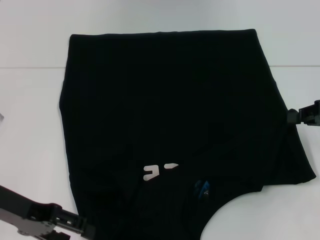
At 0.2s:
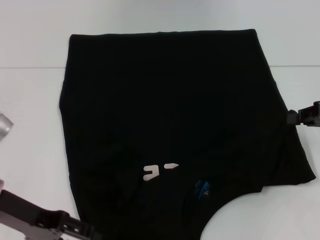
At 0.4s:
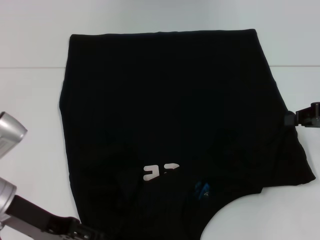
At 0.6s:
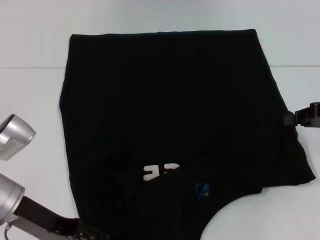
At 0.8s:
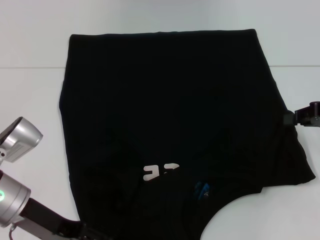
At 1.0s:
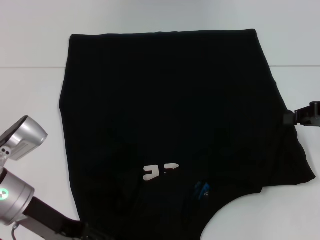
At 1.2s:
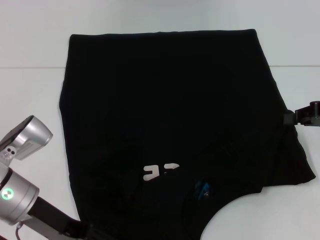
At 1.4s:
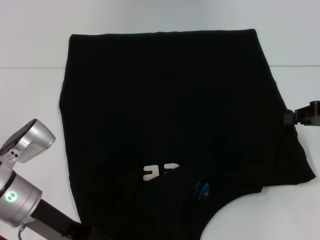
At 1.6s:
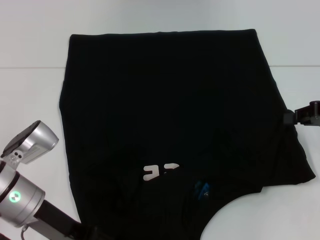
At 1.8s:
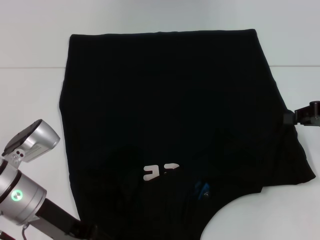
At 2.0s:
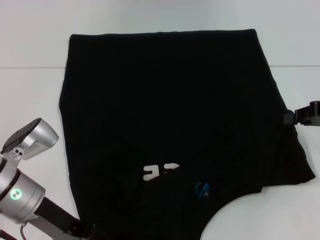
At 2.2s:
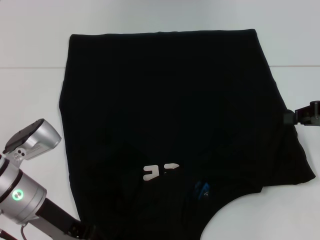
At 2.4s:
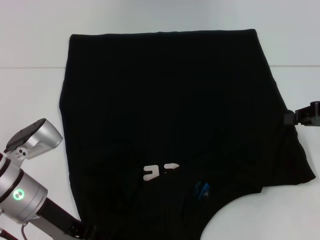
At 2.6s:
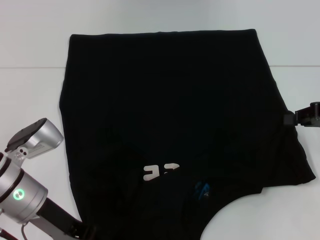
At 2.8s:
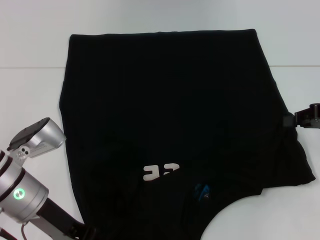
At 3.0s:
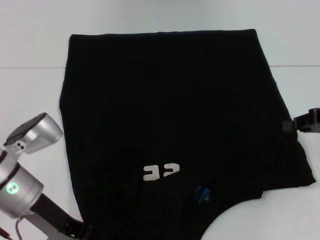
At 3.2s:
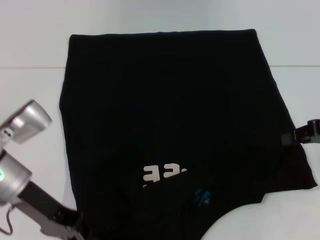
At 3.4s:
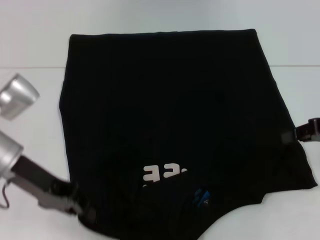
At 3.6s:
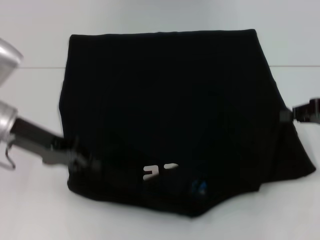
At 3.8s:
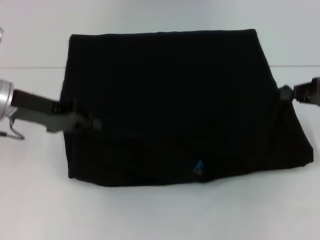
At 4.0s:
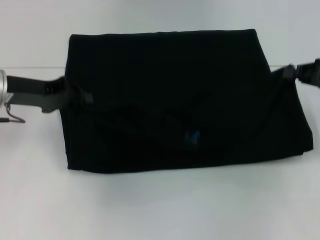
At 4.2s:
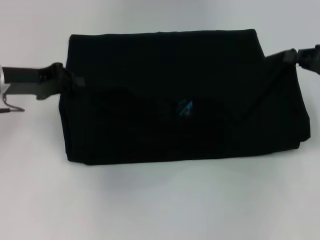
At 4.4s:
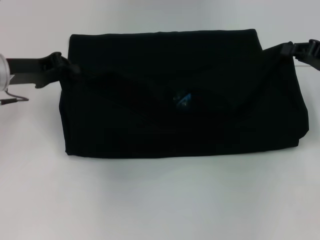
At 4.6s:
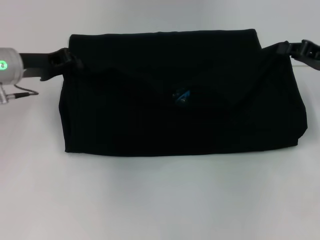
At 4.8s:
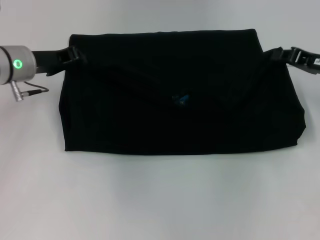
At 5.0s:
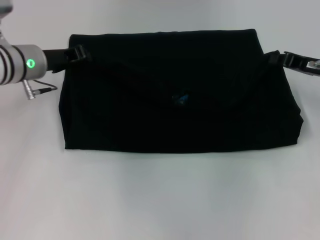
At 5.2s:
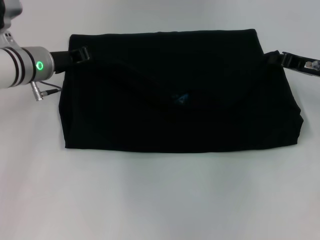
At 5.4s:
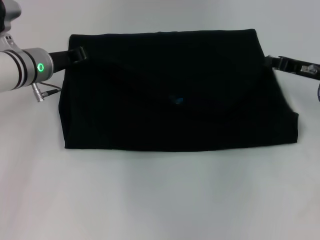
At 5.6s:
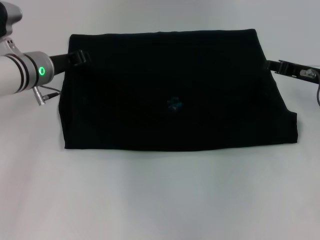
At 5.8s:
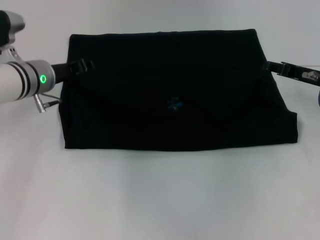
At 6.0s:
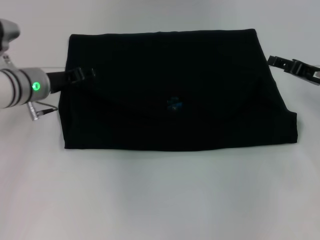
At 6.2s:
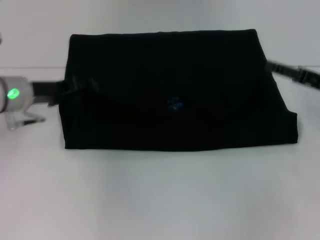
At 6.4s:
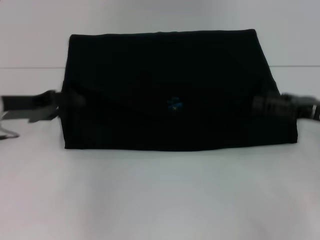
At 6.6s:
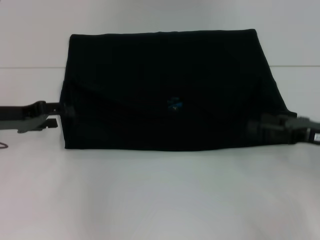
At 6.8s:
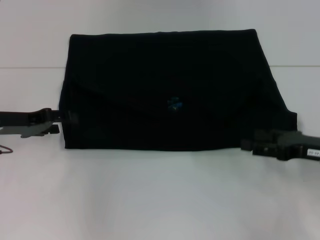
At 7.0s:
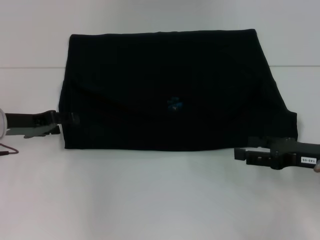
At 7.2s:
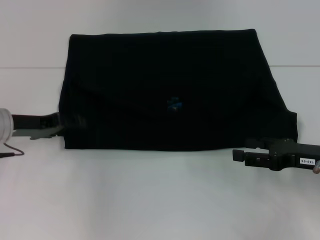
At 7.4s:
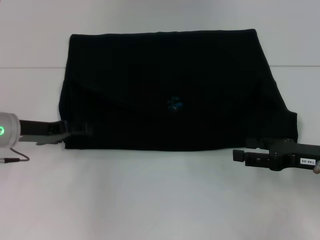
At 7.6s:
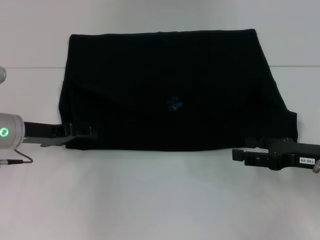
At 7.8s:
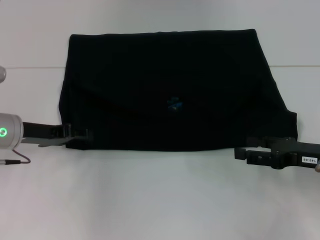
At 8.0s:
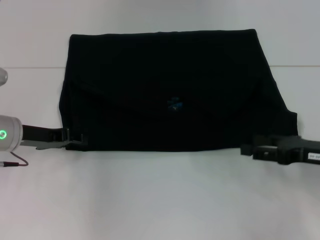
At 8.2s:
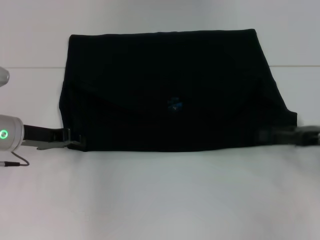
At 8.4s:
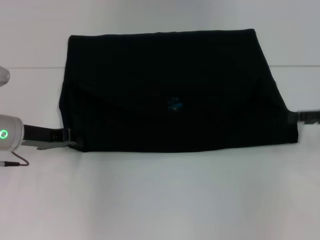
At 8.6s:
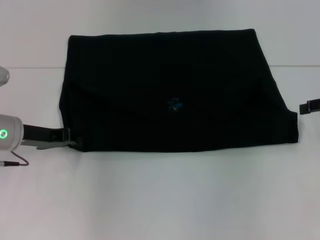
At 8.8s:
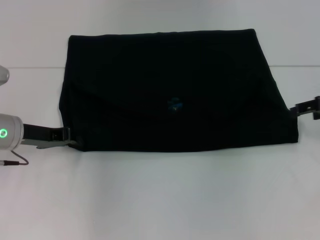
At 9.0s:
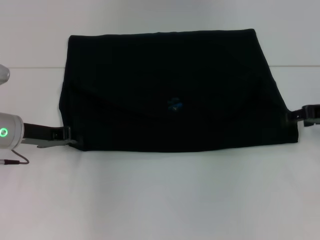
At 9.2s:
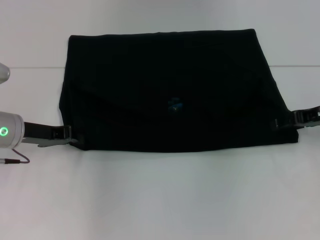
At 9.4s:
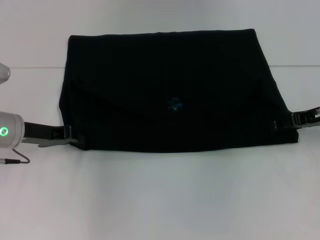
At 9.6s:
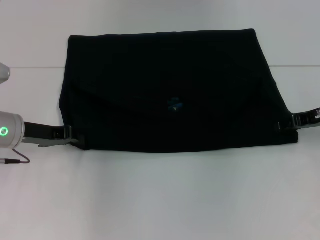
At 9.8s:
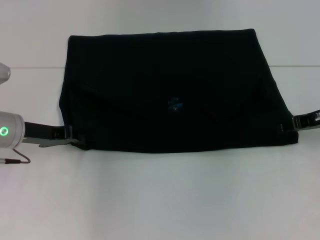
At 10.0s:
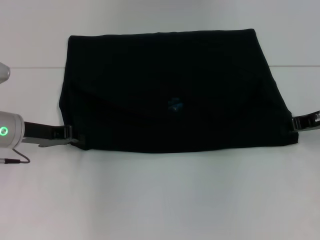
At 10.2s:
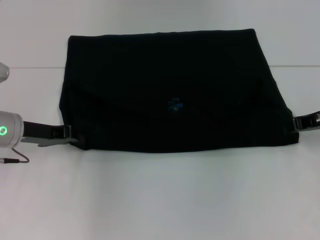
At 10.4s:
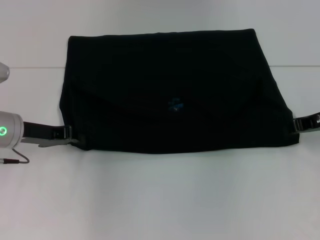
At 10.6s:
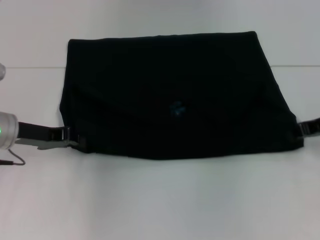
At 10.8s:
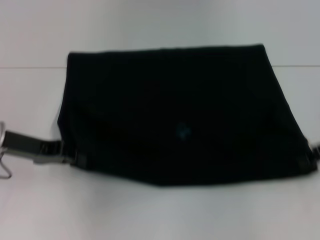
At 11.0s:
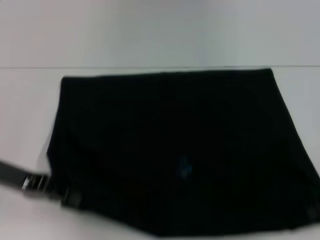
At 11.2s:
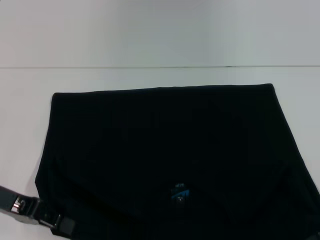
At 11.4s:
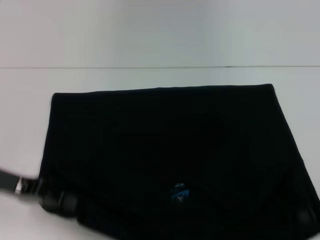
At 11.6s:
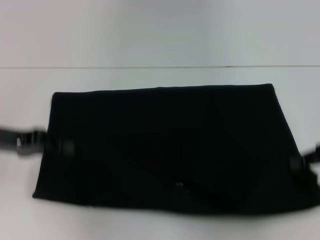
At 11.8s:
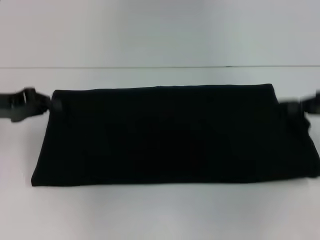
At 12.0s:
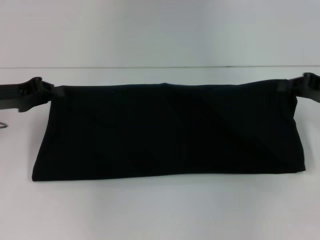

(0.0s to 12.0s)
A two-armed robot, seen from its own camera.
Step, 0.0s - 6.0s: Fold the clothes with your left hand.
Step, 0.0s - 6.0s: Fold the clothes with your right hand.
Step, 6.2s - 11.0s: Pull the clothes with your left hand.
Step, 6.2s - 11.0s: Pull the clothes with your right hand.
0.0s - 1.6s: The left gripper travels to the right by approximately 5 cm.
1.6s - 3.0s: The left gripper closes its fingers.
3.0s - 4.4s: The left gripper is displaced forward, to the left and upward by roughly 15 cm.
4.4s - 6.0s: The left gripper heads downward, covering about 5 cm, and opens up. The right gripper moves approximately 5 cm, and opens up.
6.0s - 7.6s: The grippers both shift backward by some 10 cm.
7.6s - 9.0s: The left gripper closes up, while the right gripper travels forward and upward by about 10 cm.
9.0s - 10.4s: The right gripper closes.
10.4s - 12.0s: The right gripper moves about 10 cm backward and comes back. Meanwhile the left gripper goes backward and returns, roughly 10 cm each way.

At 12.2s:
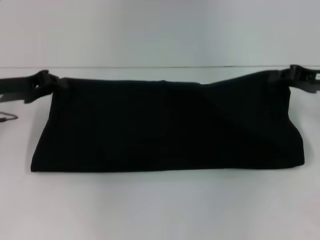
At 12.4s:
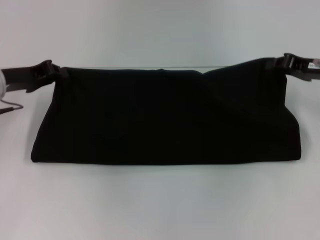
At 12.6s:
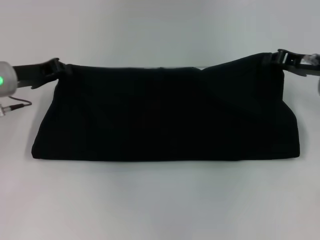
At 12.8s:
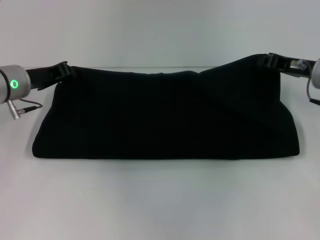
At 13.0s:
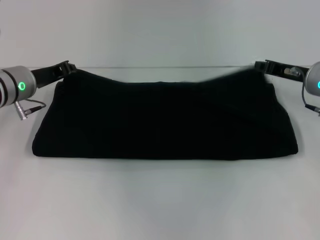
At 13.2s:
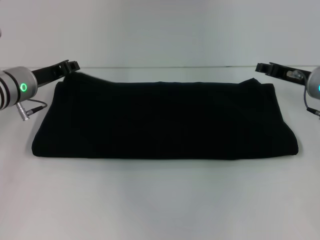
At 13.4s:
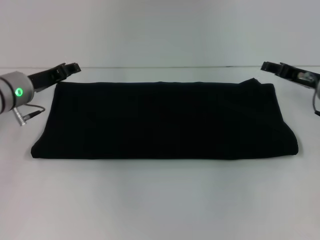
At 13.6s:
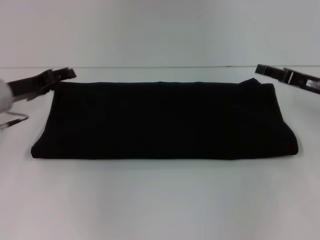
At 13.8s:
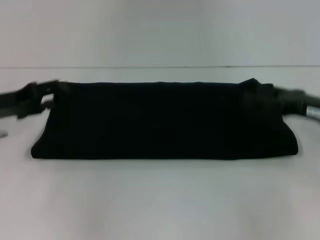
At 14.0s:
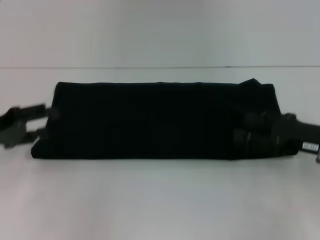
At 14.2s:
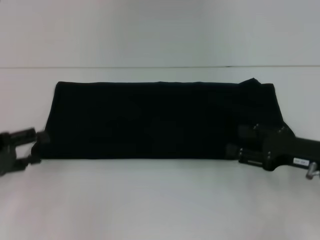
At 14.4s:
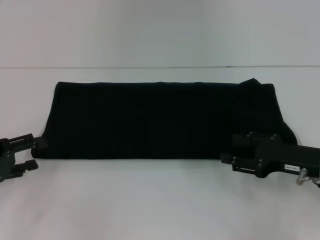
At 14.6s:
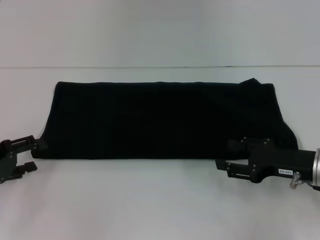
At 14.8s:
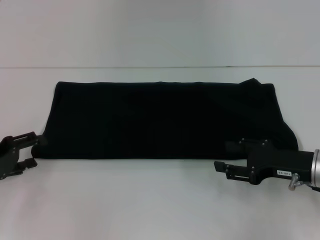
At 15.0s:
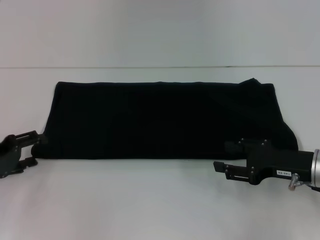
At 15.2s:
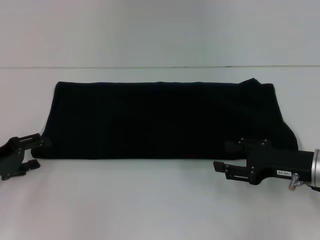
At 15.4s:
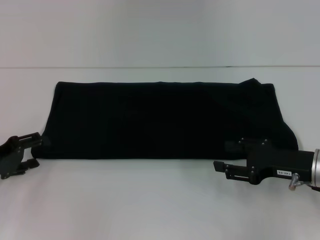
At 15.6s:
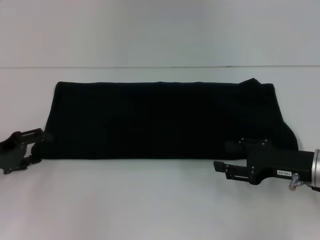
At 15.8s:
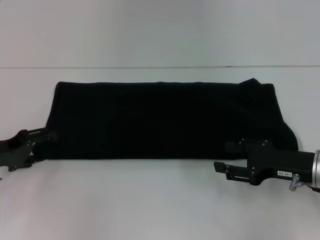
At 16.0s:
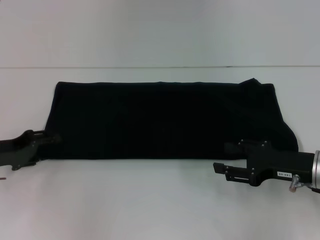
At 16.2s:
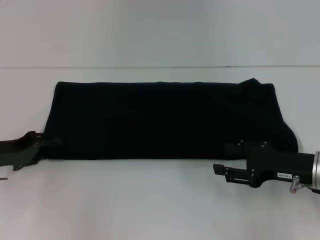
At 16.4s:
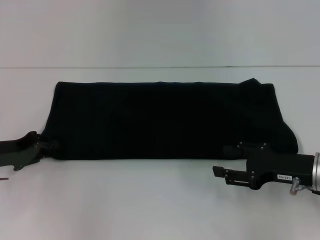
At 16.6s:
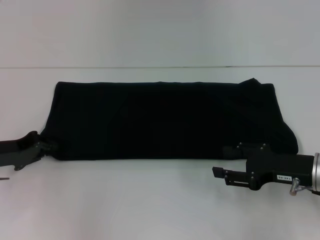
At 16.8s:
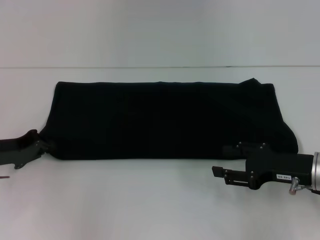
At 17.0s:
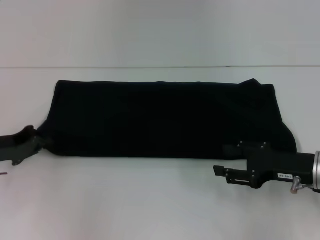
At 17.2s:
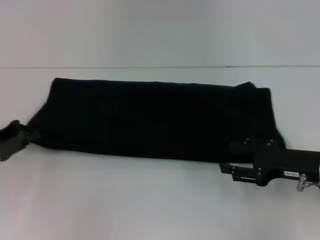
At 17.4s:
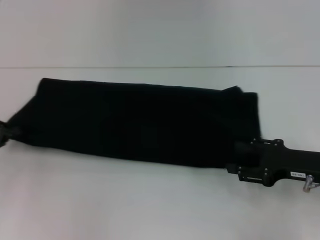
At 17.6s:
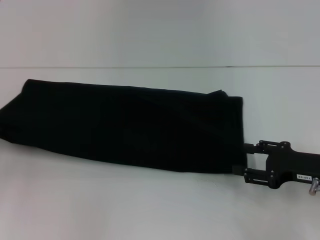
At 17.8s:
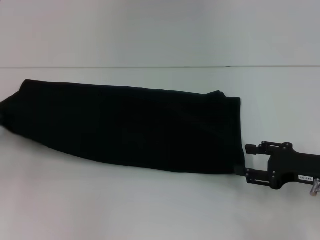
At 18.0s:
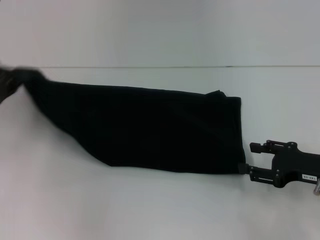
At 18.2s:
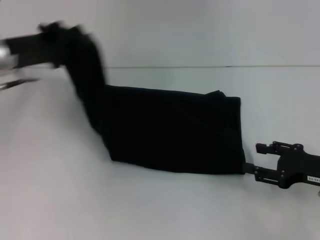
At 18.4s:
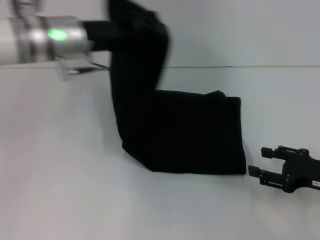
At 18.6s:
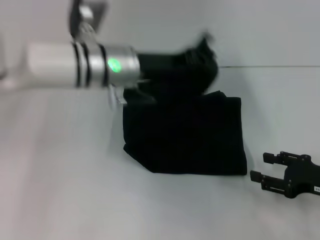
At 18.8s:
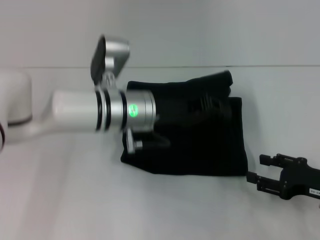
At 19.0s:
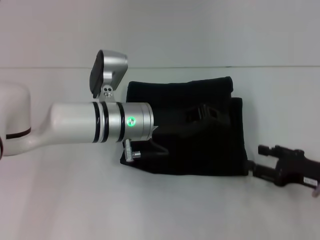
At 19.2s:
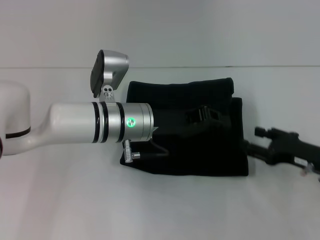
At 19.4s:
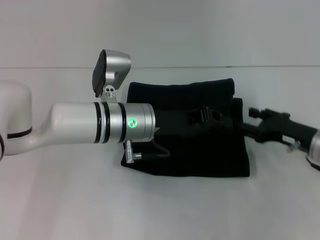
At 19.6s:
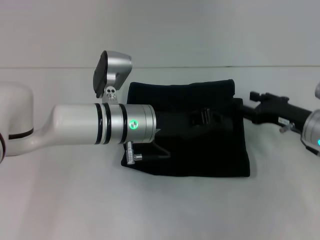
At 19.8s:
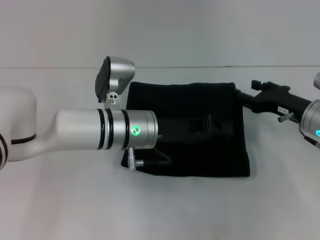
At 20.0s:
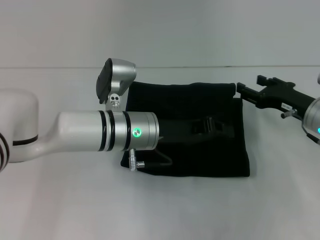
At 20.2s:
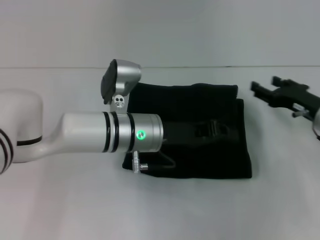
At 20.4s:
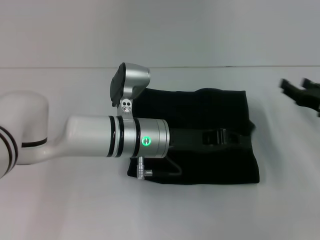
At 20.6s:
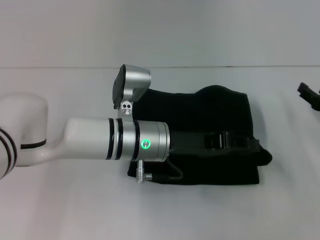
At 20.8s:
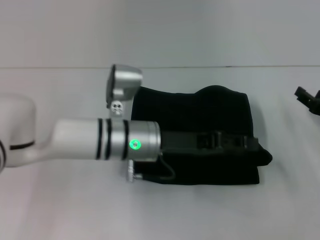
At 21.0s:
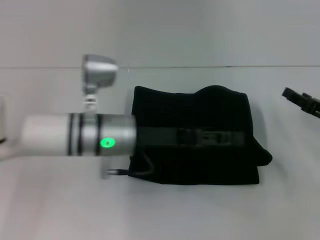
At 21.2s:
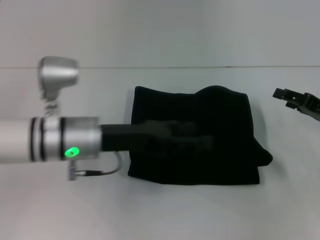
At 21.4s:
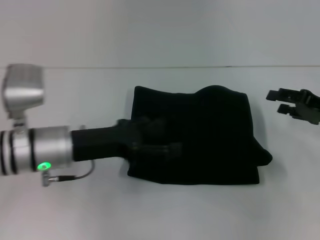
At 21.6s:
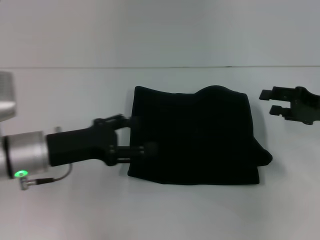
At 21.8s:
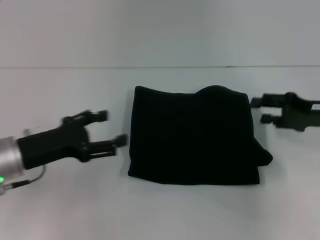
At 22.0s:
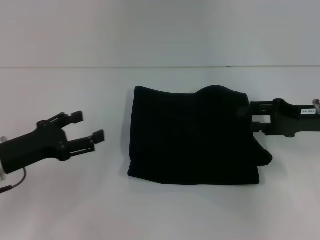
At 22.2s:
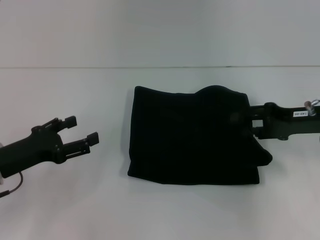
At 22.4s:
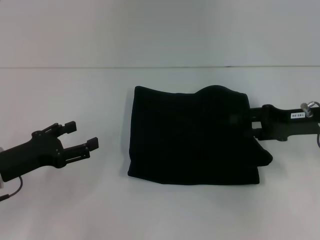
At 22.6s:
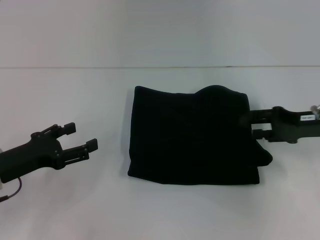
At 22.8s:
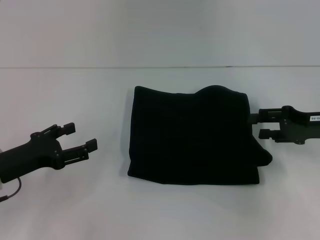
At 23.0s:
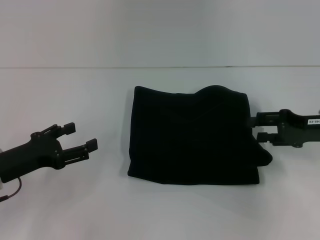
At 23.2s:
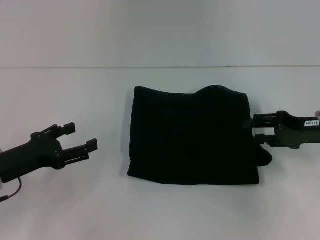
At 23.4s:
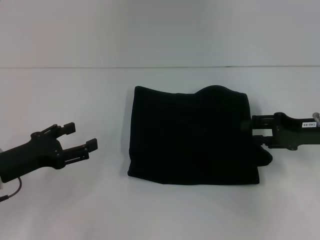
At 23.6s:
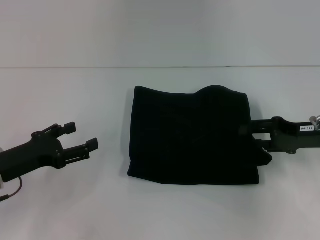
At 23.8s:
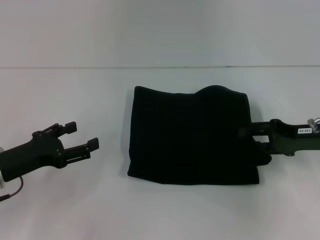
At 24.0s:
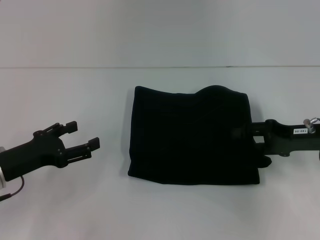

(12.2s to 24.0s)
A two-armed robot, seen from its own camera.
Step, 12.2s - 13.4s: Fold the clothes with your right hand.
Step, 12.2s - 21.0s: Fold the clothes with your left hand.
12.2s - 13.6s: The right gripper opens its fingers; the left gripper opens.
13.6s - 15.2s: The right gripper shifts approximately 10 cm backward, while the left gripper goes some 10 cm backward and to the left.
15.2s - 16.6s: The left gripper closes up.
16.6s - 18.2s: The left gripper goes roughly 15 cm upward and forward.
18.2s - 19.6s: The left gripper is displaced to the right by approximately 20 cm, while the right gripper heads forward, covering some 5 cm.
19.6s - 21.0s: The left gripper opens up. The right gripper is displaced to the right by some 5 cm.
21.0s - 22.6s: The left gripper goes about 20 cm to the left, and opens its fingers. The right gripper shifts some 5 cm upward.
22.6s - 24.0s: There are only small adjustments of the grippers.
